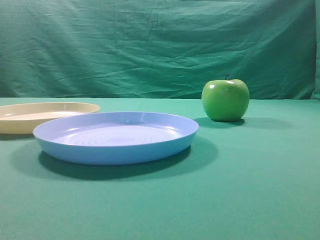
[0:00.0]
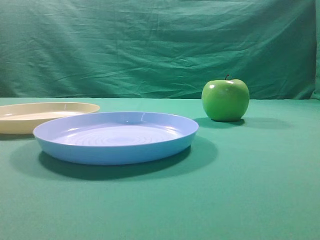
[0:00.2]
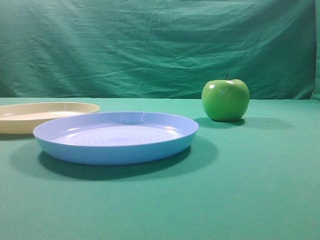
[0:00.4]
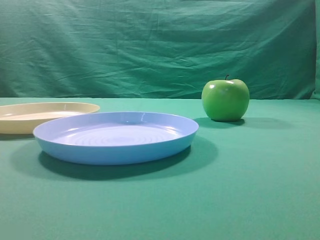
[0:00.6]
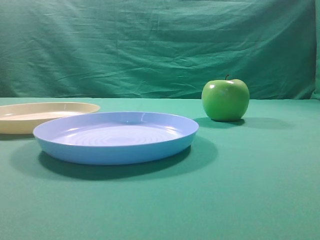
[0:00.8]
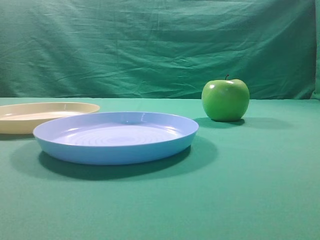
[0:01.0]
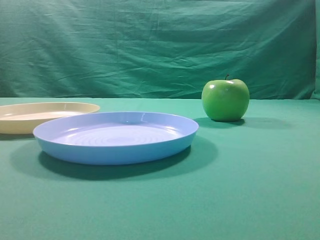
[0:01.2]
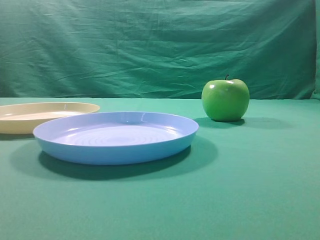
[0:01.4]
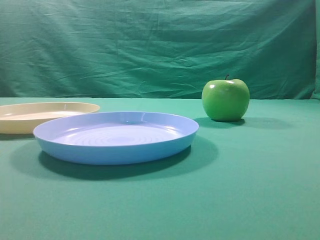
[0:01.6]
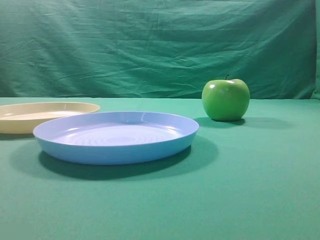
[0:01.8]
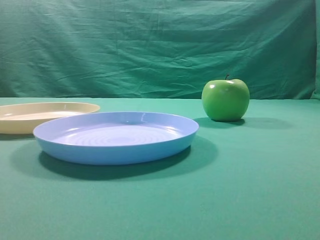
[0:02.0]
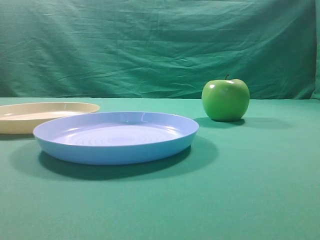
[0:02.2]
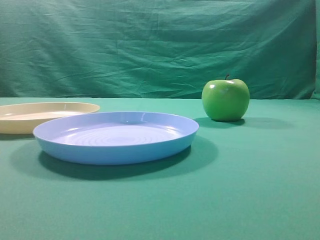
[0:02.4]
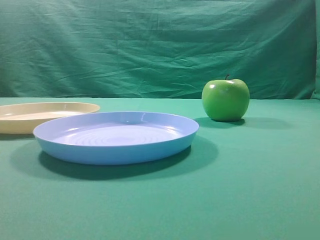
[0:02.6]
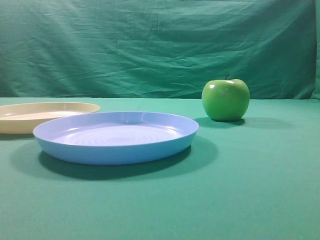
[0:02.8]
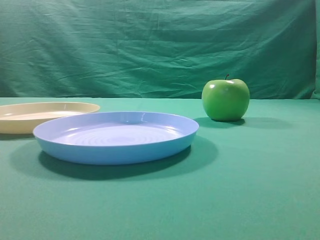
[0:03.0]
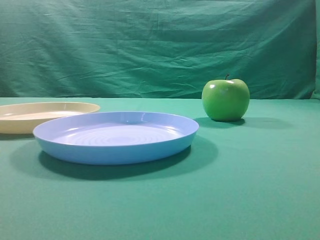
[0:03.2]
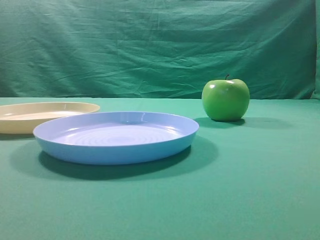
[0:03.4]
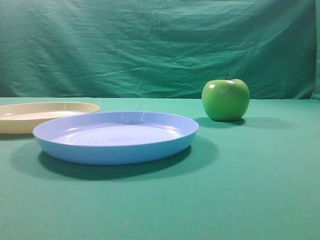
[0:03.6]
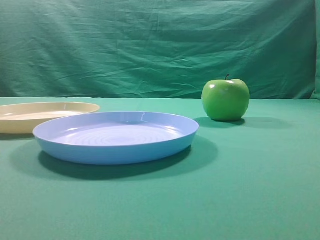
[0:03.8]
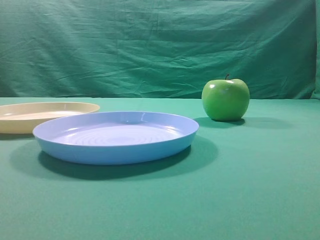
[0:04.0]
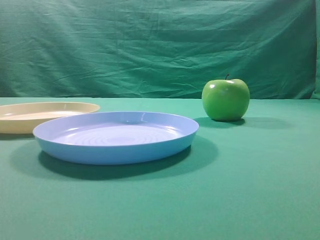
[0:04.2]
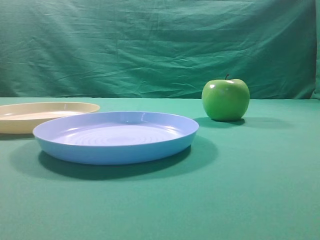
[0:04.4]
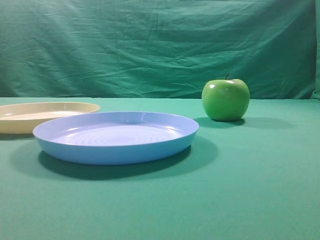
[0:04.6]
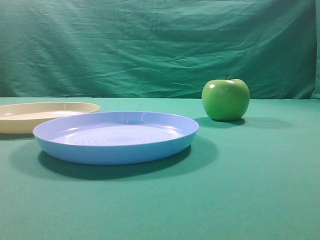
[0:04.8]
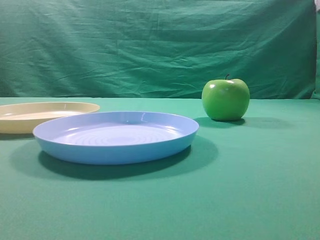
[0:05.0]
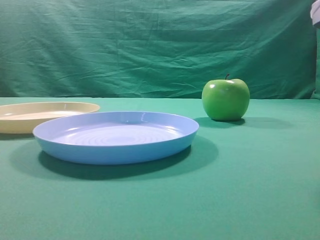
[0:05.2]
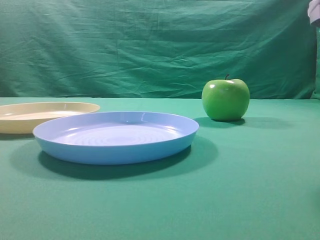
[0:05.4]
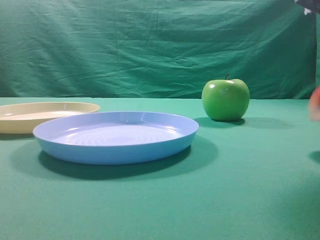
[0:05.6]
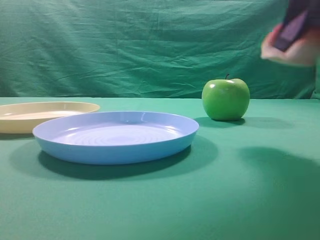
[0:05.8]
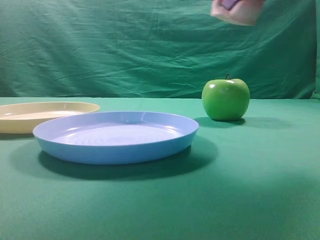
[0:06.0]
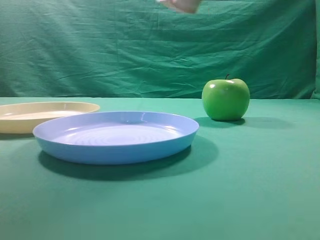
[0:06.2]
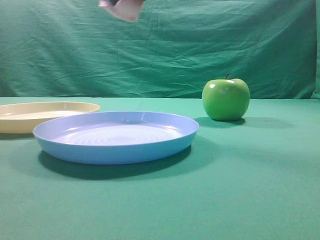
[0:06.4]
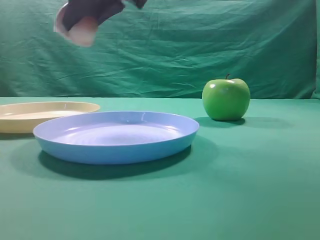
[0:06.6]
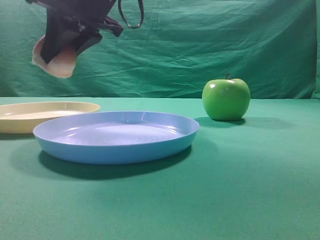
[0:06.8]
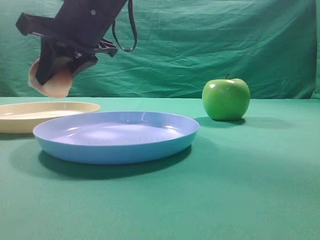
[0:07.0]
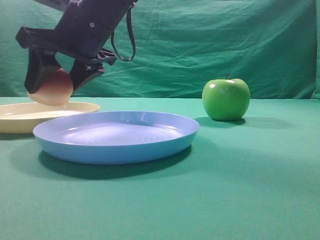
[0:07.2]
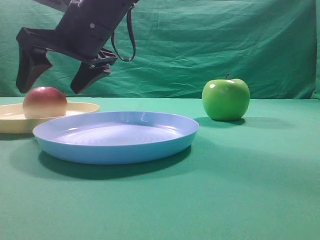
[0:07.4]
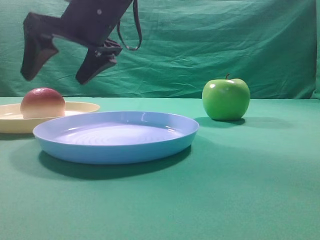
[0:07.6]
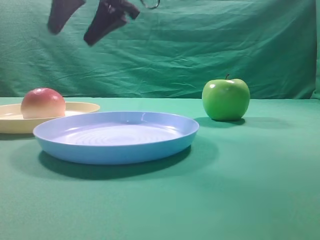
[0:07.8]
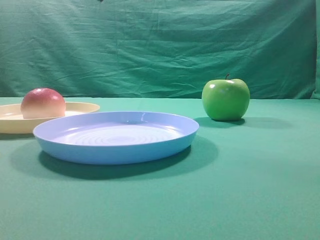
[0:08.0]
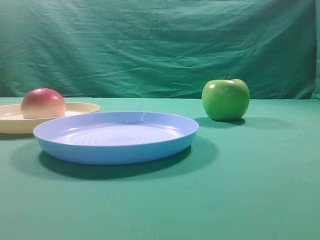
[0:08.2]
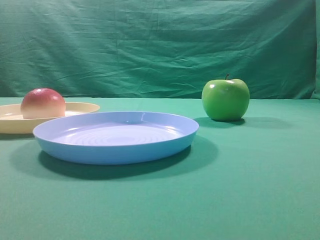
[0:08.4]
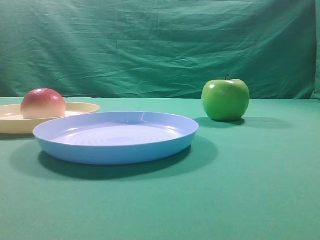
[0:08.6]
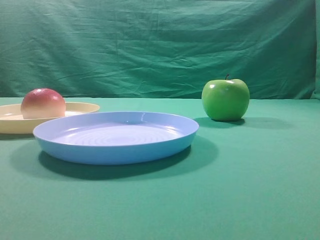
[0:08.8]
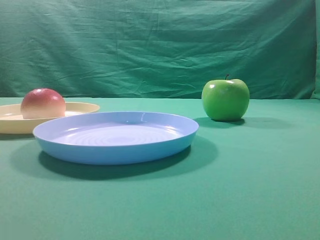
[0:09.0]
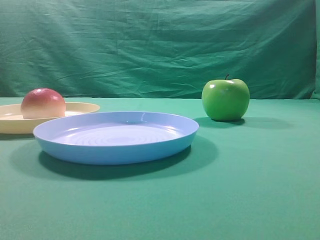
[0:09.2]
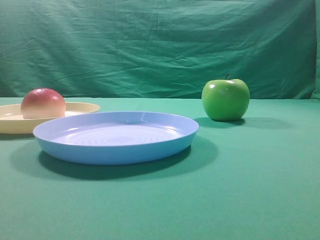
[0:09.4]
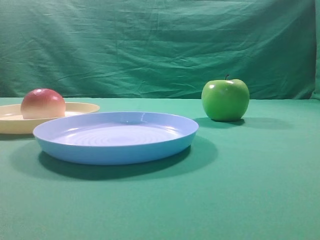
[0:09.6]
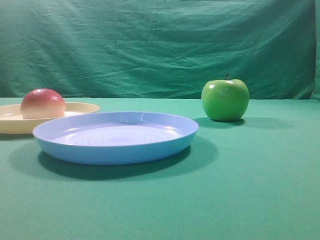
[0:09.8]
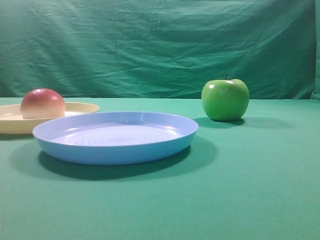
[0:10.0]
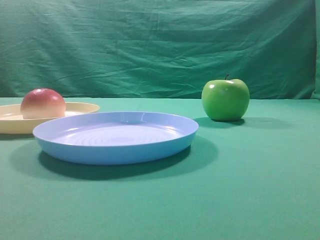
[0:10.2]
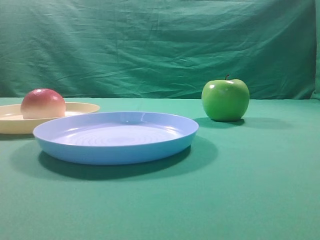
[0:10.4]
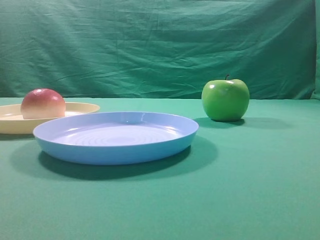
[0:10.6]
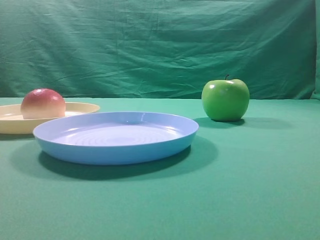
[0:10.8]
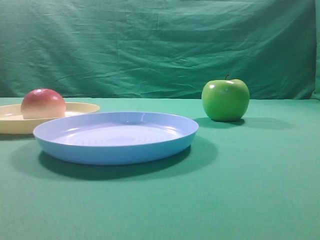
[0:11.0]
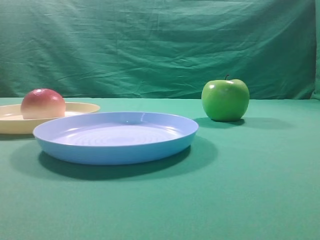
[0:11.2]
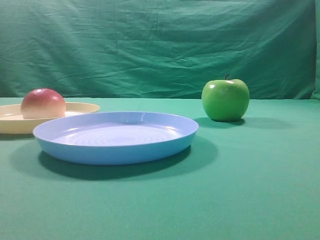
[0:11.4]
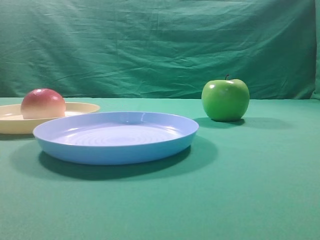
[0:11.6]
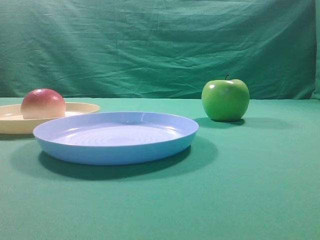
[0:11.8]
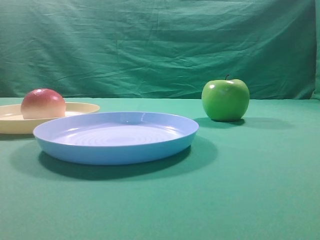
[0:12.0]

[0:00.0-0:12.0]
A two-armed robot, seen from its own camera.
Step, 0:05.8 to 0:07.6: Place the picked object on the yellow plate.

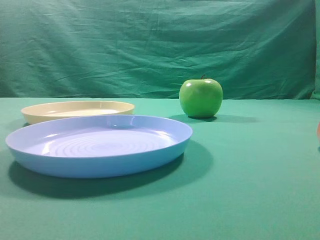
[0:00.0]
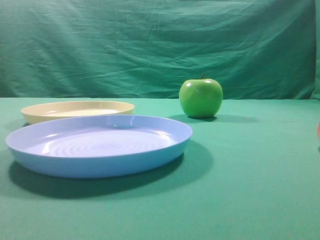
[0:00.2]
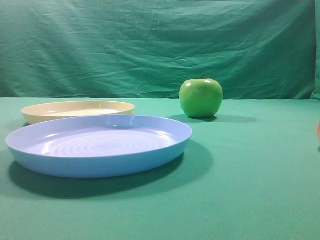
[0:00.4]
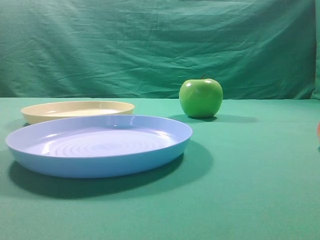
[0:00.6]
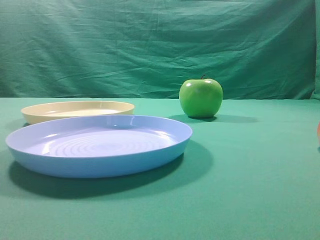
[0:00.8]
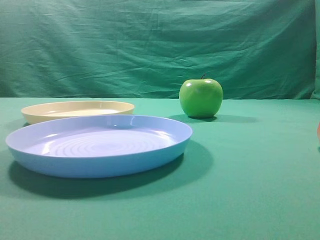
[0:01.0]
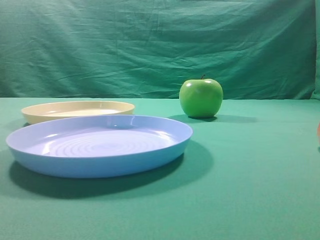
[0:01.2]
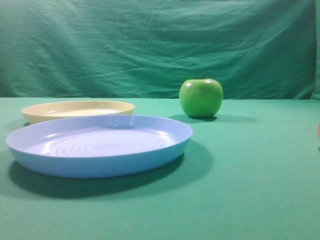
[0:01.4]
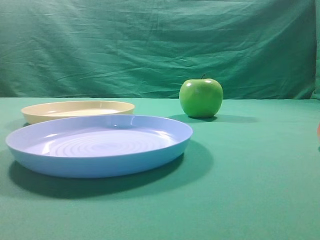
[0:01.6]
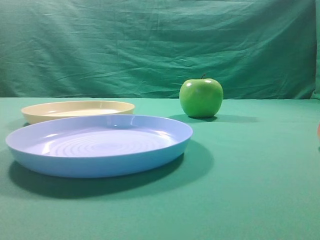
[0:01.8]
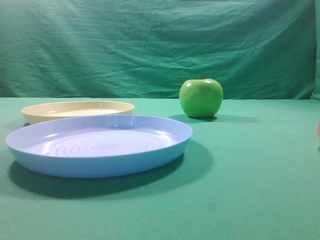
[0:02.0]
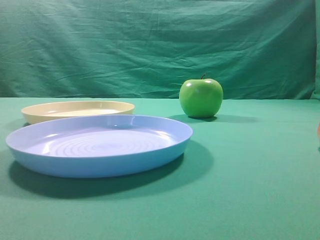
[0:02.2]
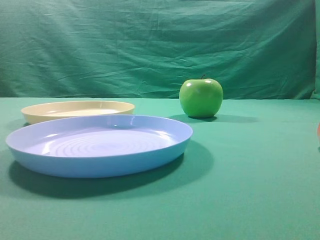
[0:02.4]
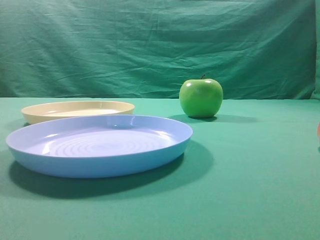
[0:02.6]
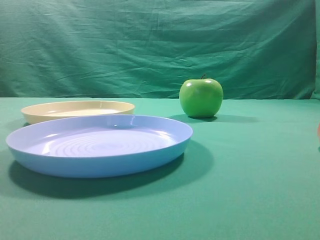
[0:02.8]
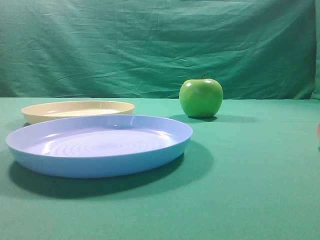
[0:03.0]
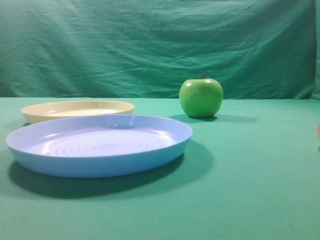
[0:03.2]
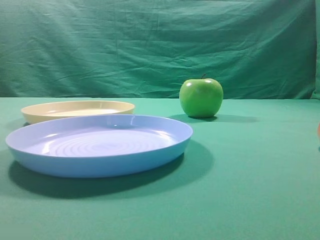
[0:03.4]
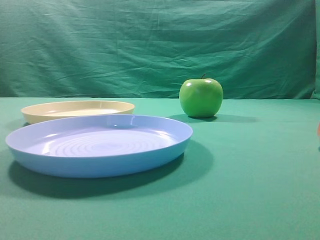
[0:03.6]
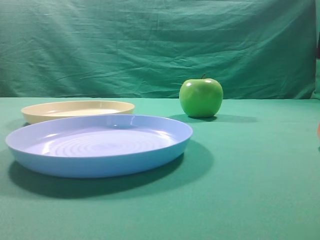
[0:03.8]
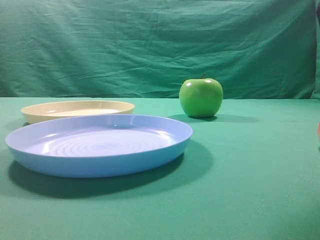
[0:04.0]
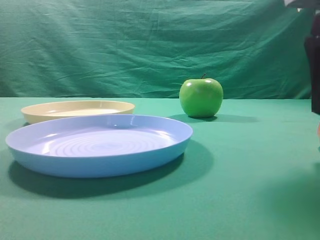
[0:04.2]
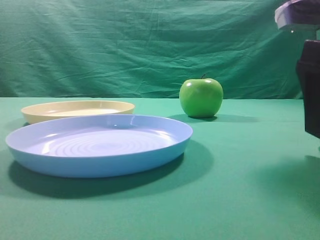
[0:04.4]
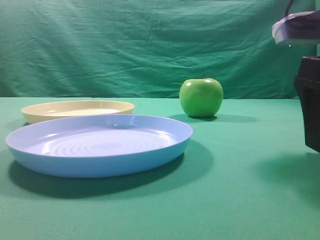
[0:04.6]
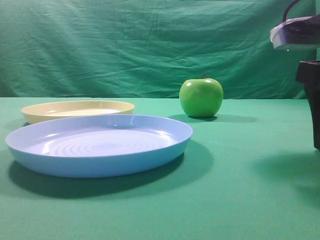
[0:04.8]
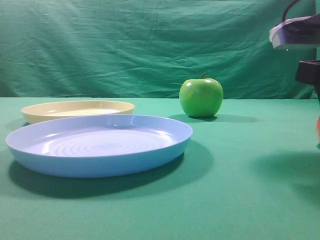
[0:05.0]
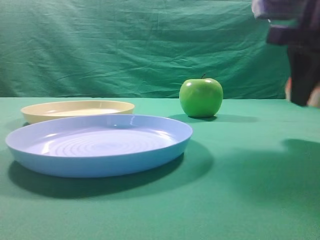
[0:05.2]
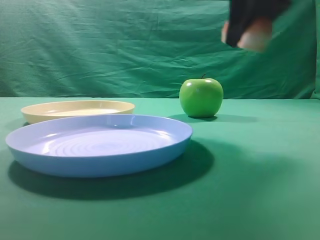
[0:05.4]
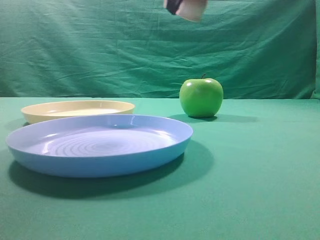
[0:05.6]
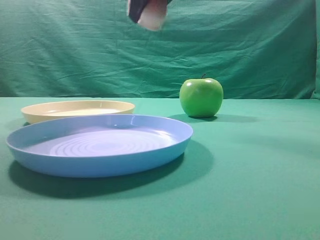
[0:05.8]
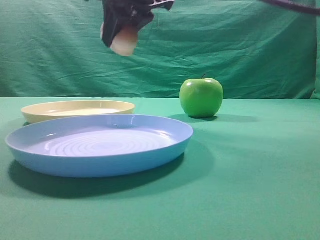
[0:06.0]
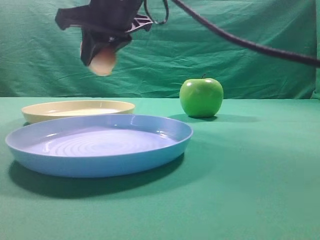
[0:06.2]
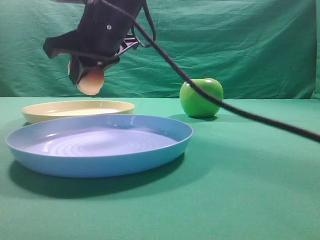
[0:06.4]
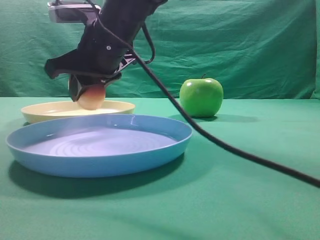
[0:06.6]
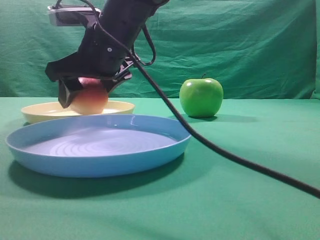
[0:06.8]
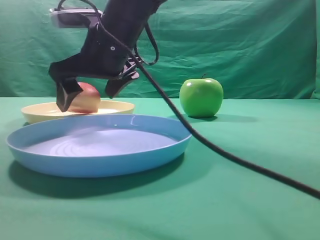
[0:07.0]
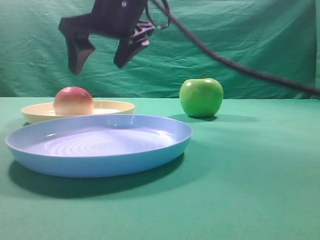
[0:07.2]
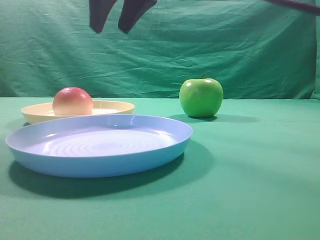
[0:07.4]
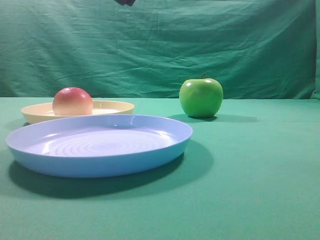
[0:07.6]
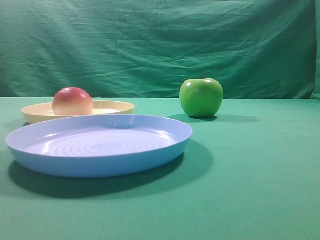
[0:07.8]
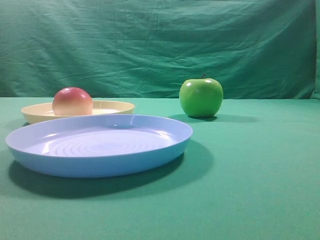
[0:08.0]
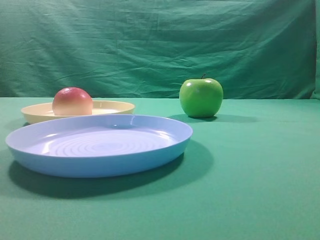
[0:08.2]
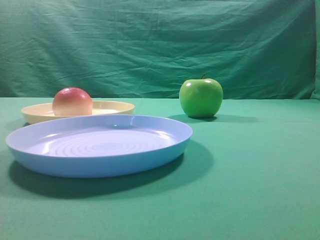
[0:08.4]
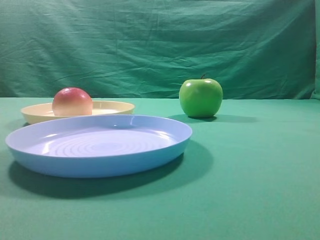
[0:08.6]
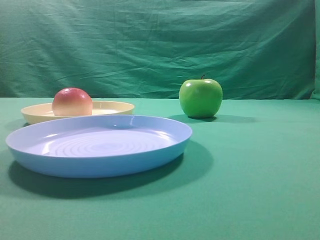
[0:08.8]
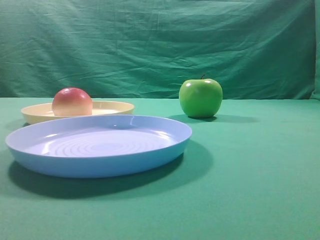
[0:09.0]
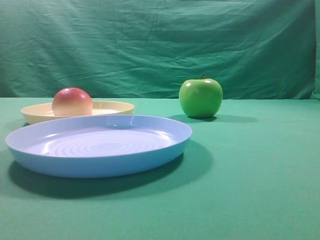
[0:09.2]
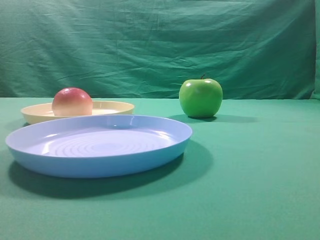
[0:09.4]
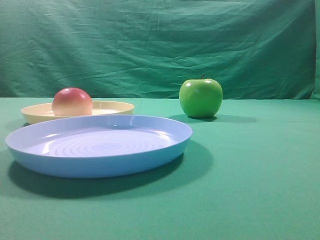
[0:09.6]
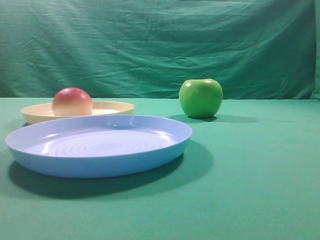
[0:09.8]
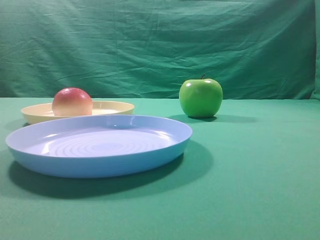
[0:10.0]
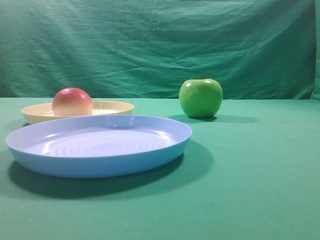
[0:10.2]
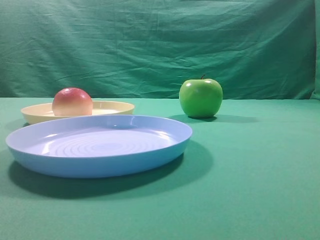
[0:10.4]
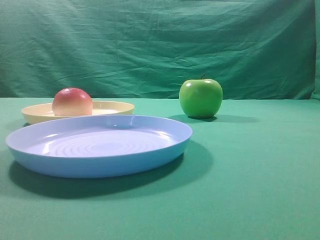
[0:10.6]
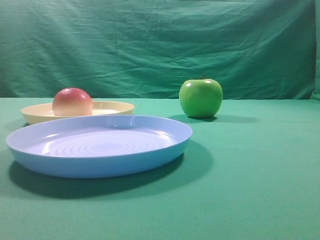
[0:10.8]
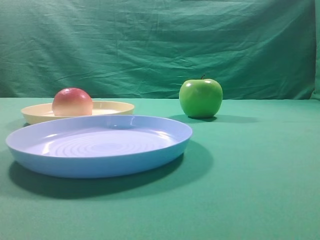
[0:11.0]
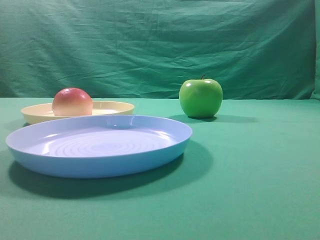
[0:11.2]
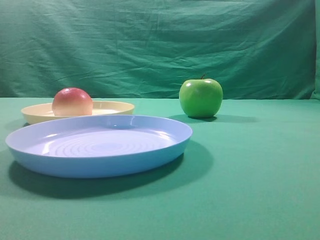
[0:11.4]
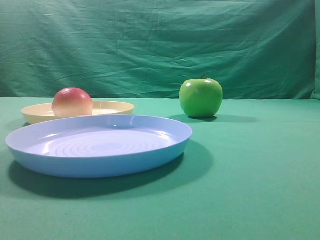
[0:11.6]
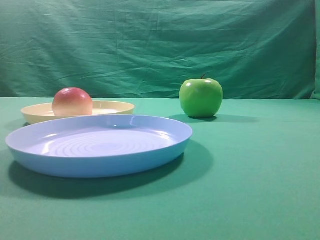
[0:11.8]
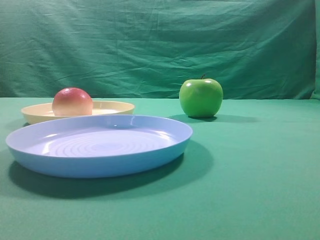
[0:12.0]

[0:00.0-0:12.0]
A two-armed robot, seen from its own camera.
Step, 0:05.4 to 0:07.2: Place the picked object on the yellow plate.
